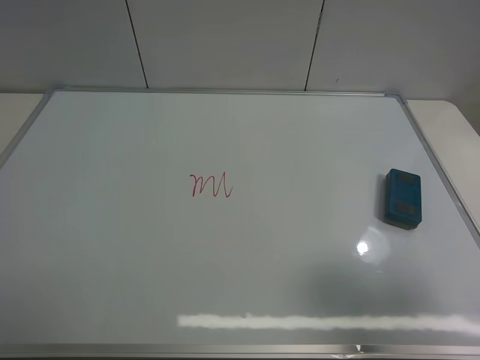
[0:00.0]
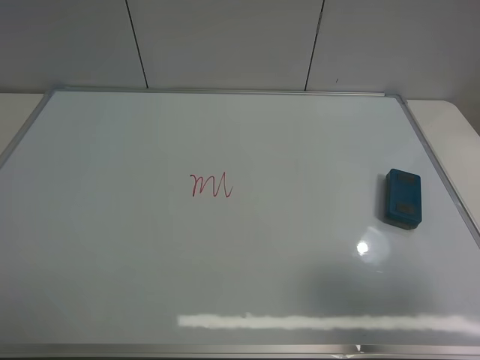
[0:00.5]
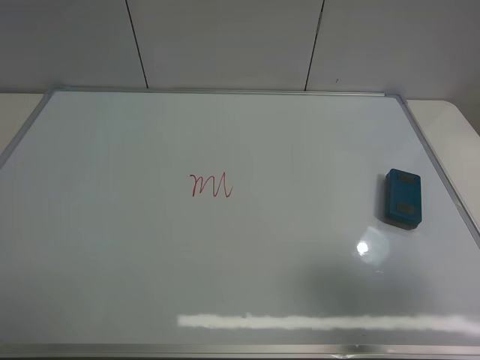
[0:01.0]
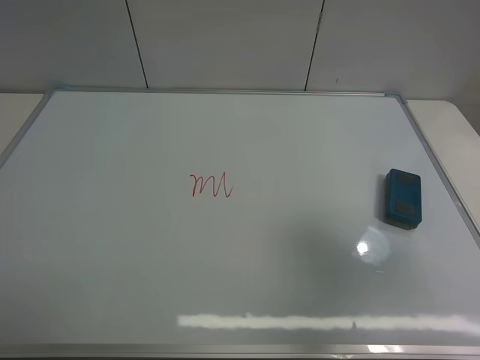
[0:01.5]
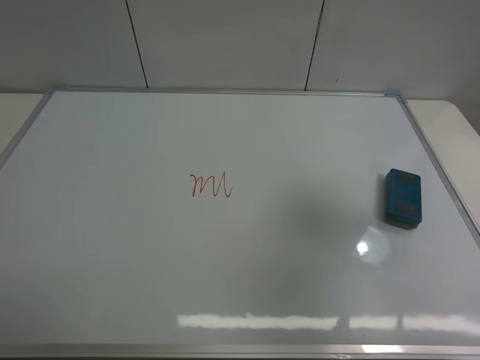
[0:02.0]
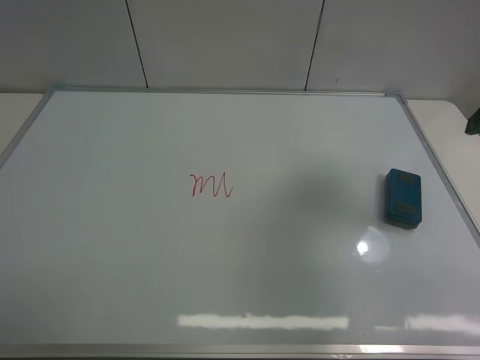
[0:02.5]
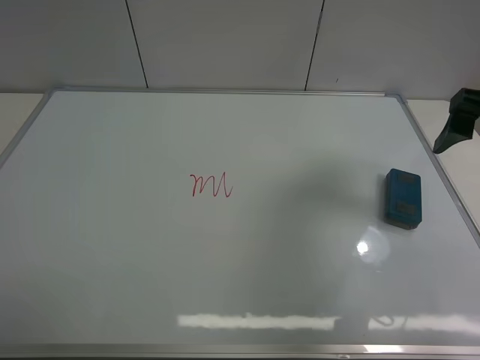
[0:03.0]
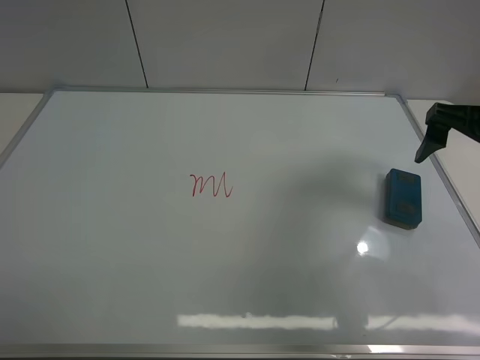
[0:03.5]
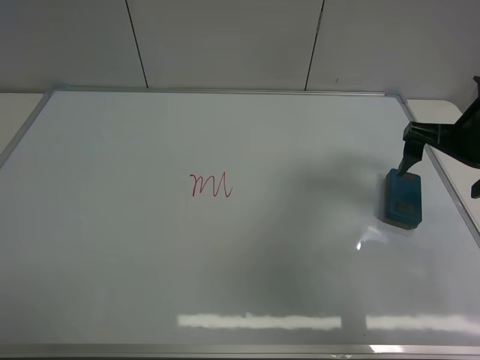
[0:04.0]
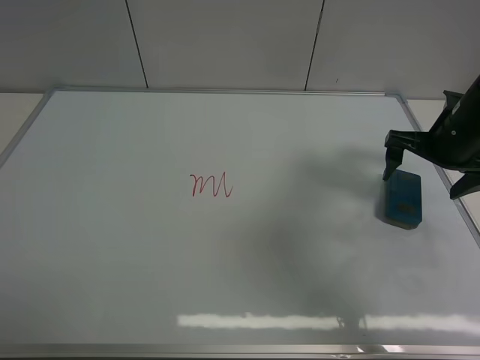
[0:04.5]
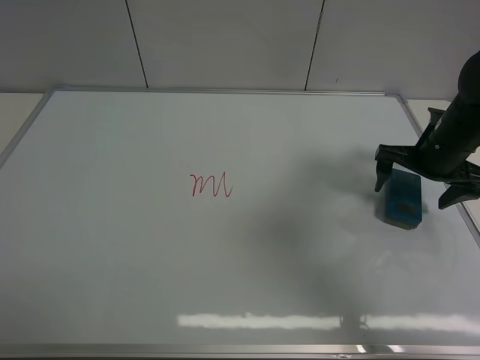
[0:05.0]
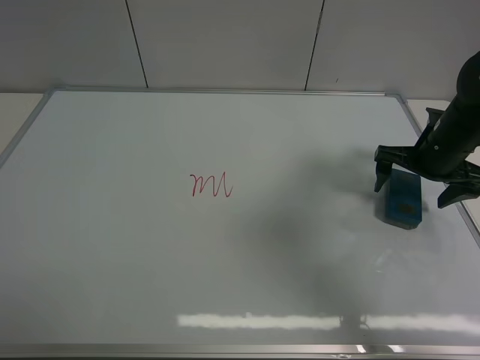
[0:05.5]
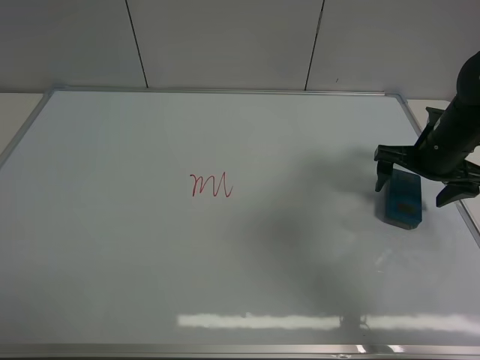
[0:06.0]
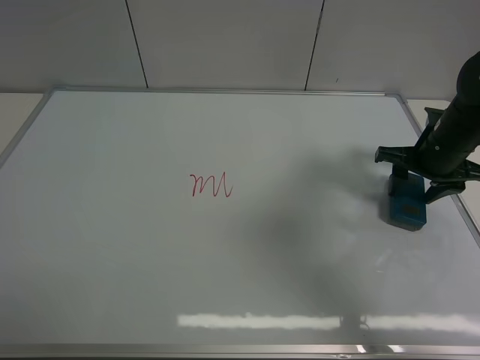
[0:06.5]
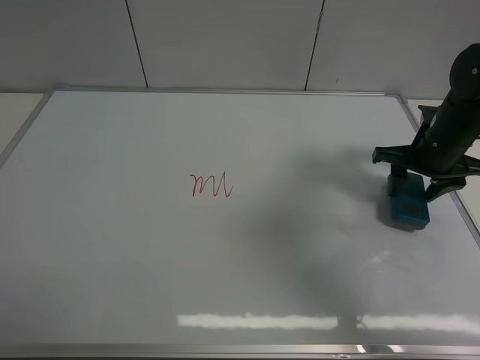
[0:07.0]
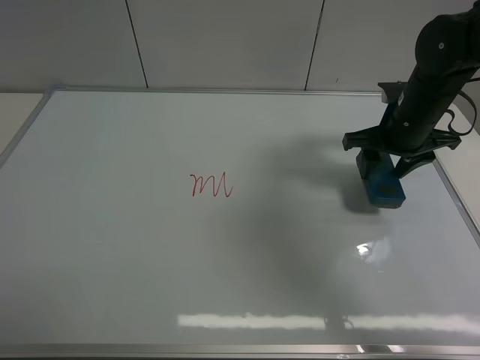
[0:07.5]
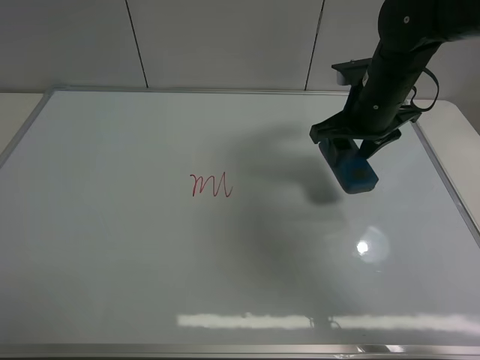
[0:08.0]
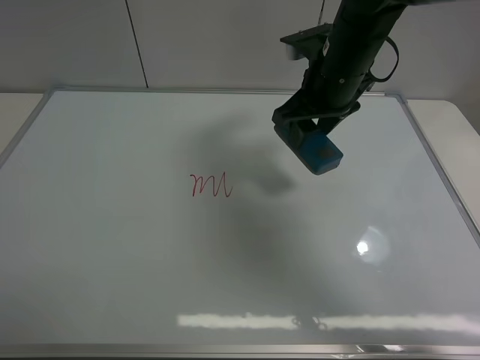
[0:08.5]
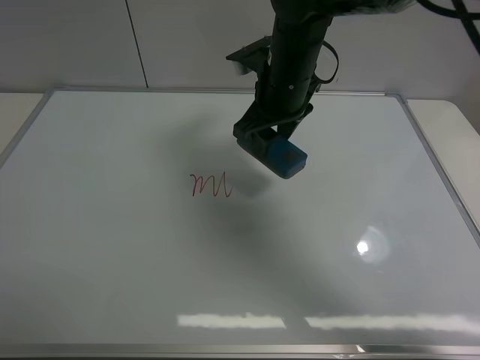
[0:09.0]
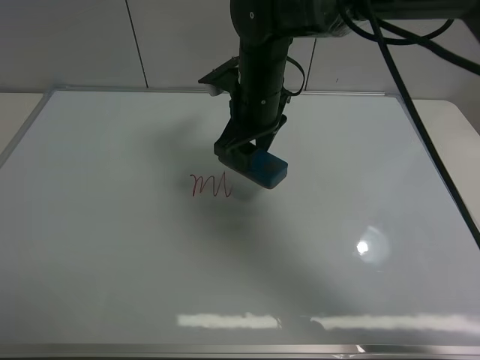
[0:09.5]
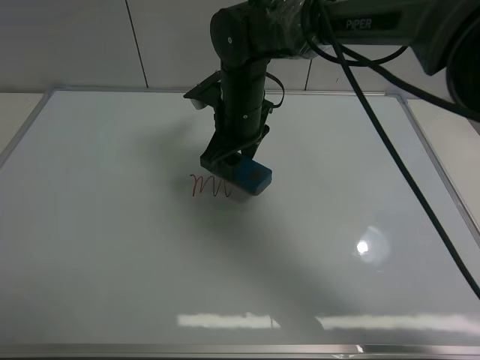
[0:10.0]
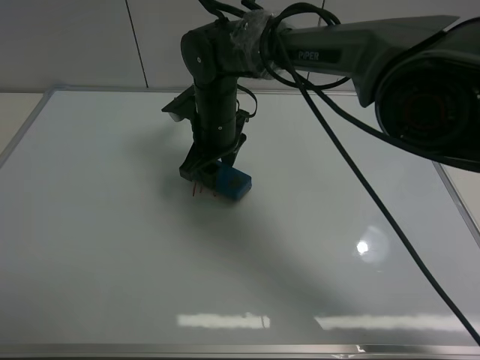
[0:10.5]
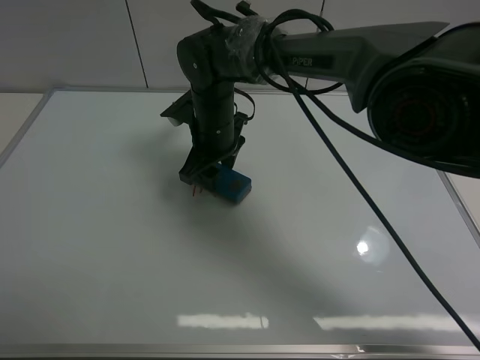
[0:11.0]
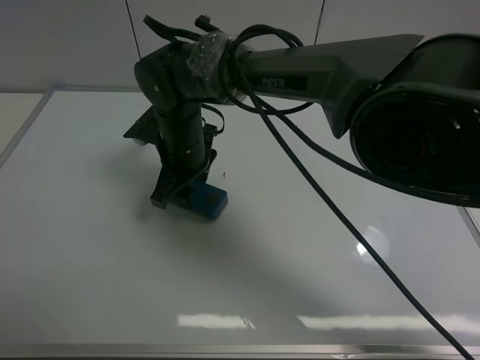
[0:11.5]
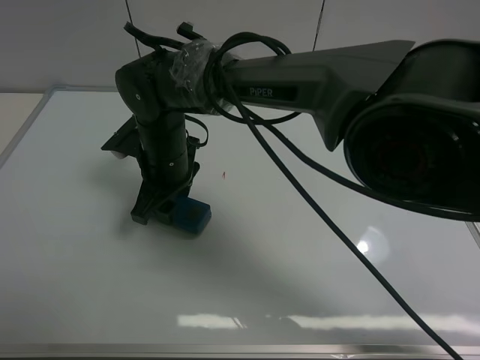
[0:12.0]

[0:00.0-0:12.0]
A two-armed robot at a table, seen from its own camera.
Task of the whole recording: use the right gripper to pick up the board eraser, wipe the notes on the whiteboard clean, and then put them back in place.
Step, 0:00.0 to 0:07.0: Pick up the board eraser with right gripper.
0:00.0 to 0:02.0: The right gripper moves forward and upward, roughly 15 cm.
0:02.0 to 0:04.0: The right gripper goes roughly 20 cm forward and downward.
0:04.0 to 0:06.0: The right gripper heads downward, covering approximately 5 cm.
0:06.0 to 0:08.0: The right gripper shifts some 15 cm to the left and upward, and closes.
0:08.0 to 0:10.0: The right gripper travels to the left by some 20 cm.
0:10.0 to 0:12.0: The right gripper goes about 10 cm to the left and backward.

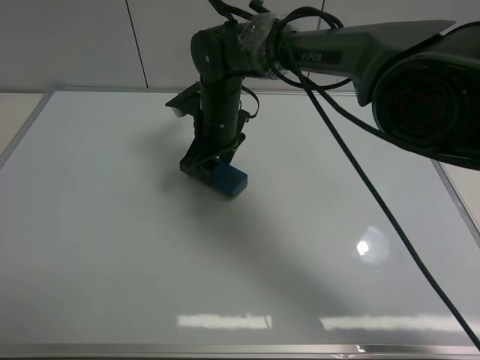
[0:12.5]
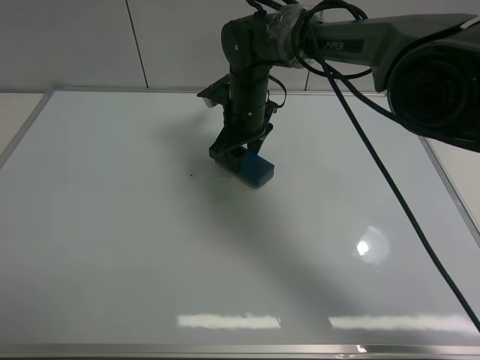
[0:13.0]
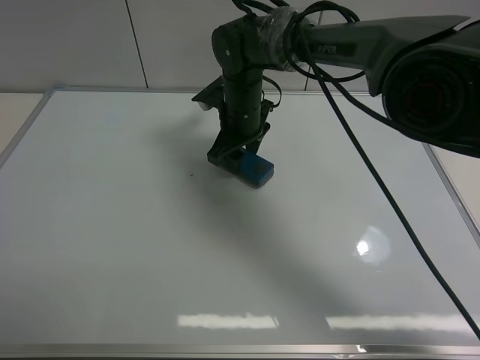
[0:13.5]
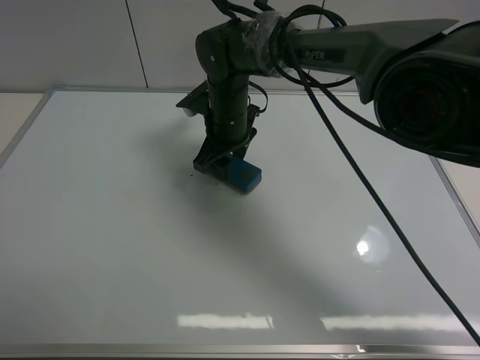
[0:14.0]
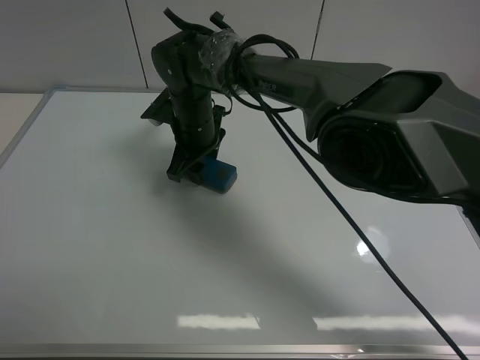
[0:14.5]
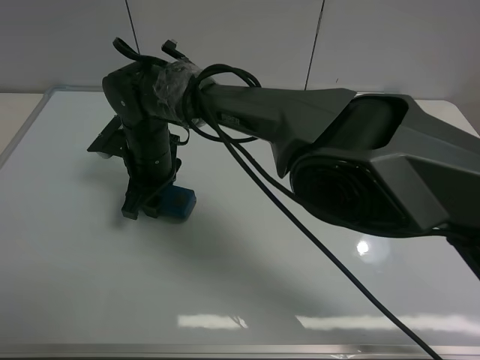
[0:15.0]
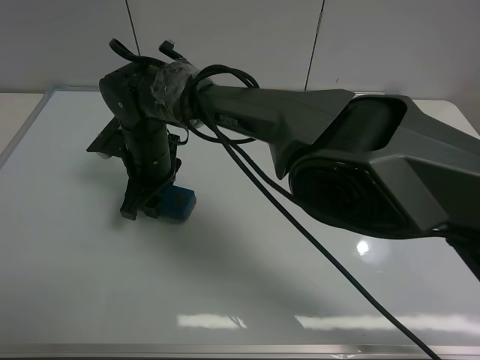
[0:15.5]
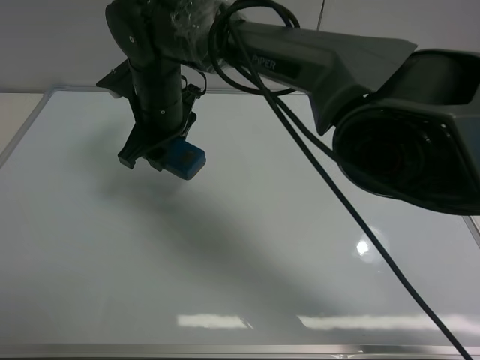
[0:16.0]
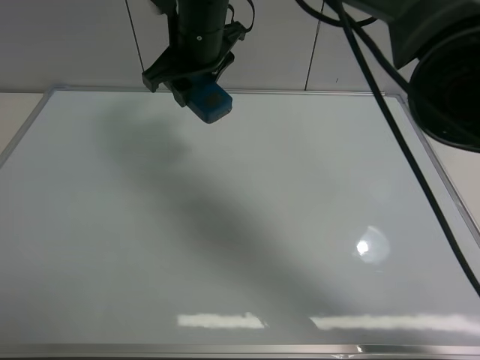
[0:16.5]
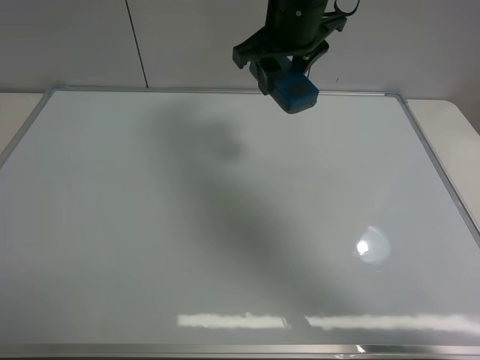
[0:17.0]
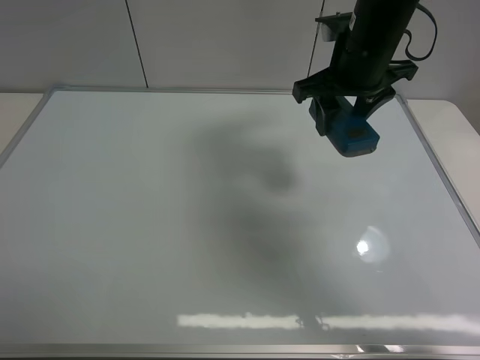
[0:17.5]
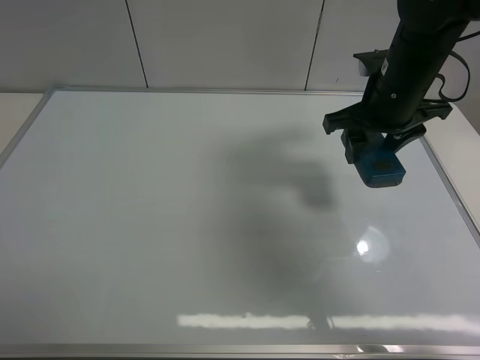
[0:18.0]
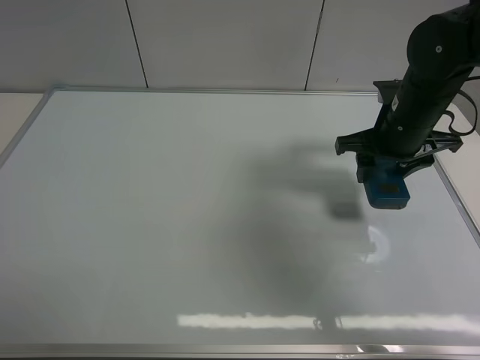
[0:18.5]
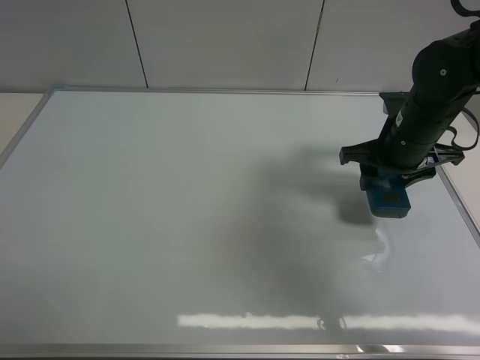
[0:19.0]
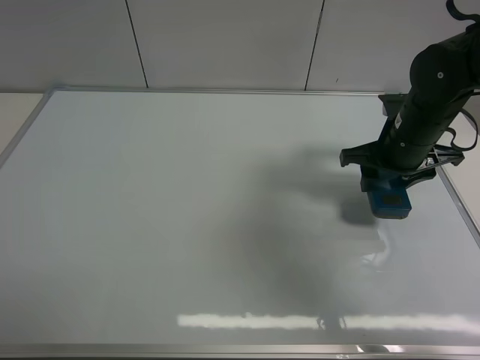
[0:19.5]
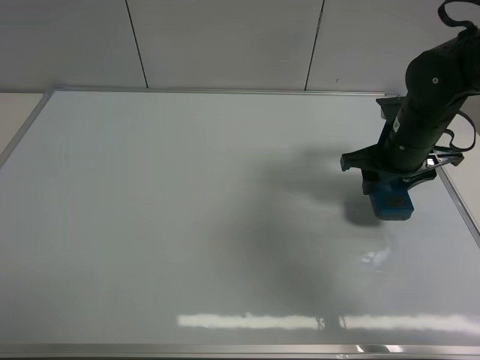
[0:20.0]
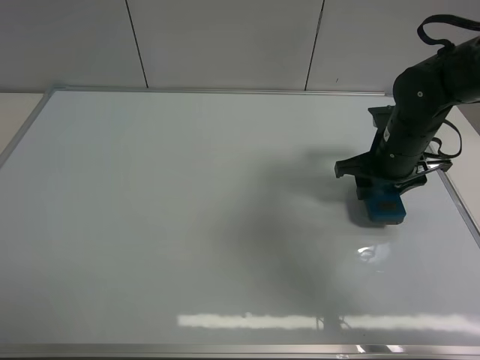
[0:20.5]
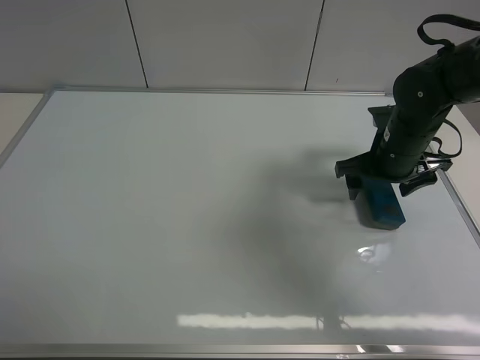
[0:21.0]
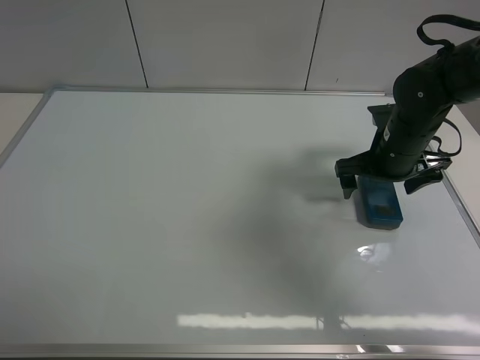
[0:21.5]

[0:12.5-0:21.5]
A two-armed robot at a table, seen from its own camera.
Task of the whole recording: use the right gripper to pick up the board eraser, wipe the notes on the whiteboard clean, and then put them back in place.
Step, 0:12.5 to 0:15.0: Wipe off the writing on the board with right gripper.
Step, 0:15.5 to 0:21.0: Place the board eraser on the right side of board with right gripper.
0:14.5 to 0:17.0: The right gripper is displaced upward and to the right by roughly 20 cm.
0:17.0 to 0:19.5: The right gripper is displaced to the right, downward and backward by some 20 cm.
0:19.5 to 0:21.5: The right gripper opens up.

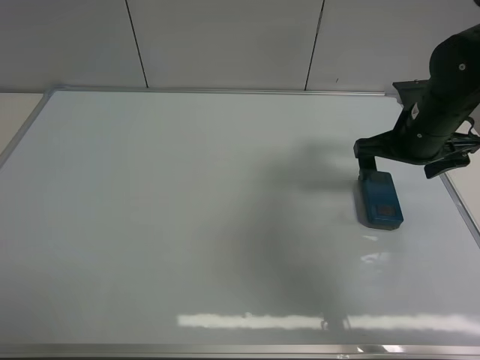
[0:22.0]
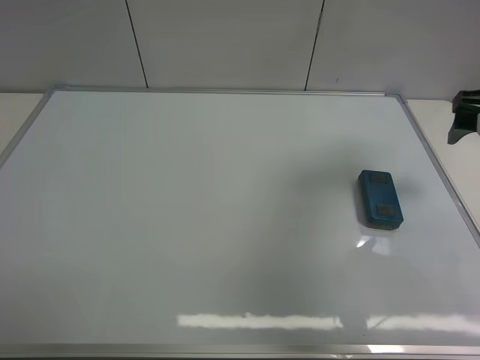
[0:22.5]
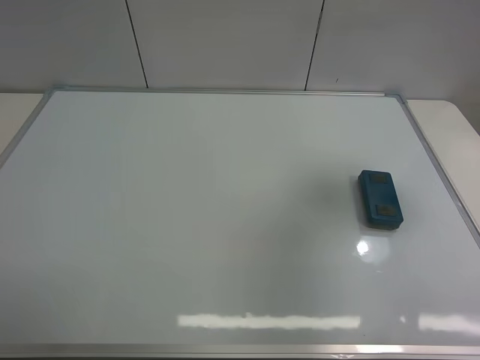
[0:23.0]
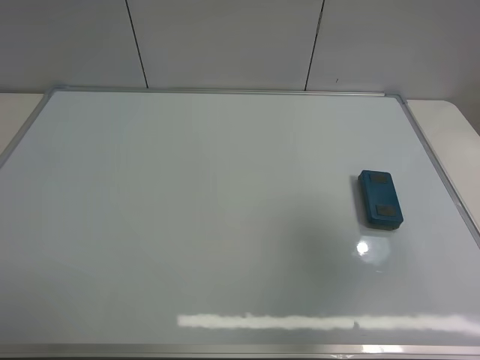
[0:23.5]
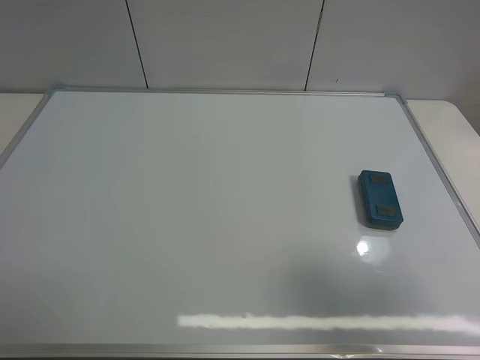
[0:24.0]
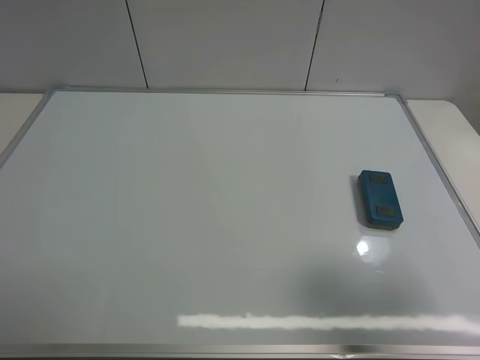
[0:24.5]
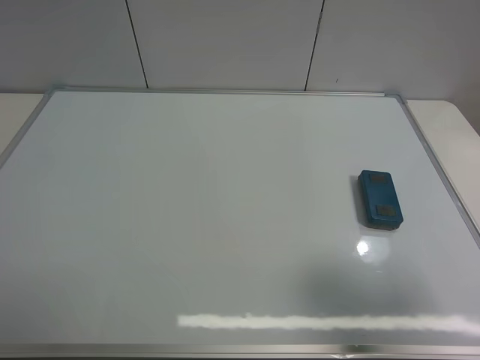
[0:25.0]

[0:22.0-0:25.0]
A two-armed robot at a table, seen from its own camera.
Task of the whole recording: use the right gripper to pick up the board eraser, wipe the notes on the whiteboard clean, and then put them back in place.
0:22.0 to 0:23.5: The right gripper goes roughly 30 cm backward and upward.
0:23.5 to 0:25.0: The right gripper travels downward by some 10 cm.
